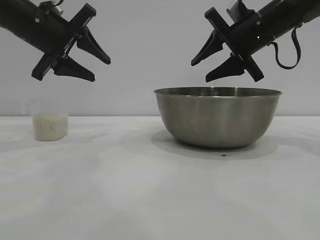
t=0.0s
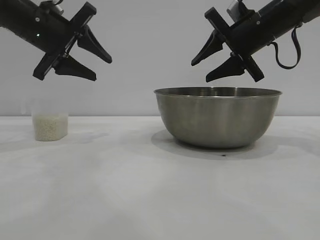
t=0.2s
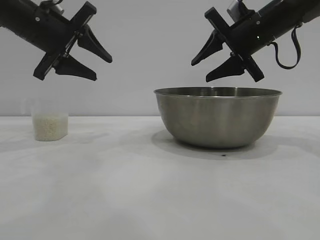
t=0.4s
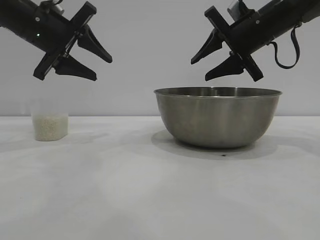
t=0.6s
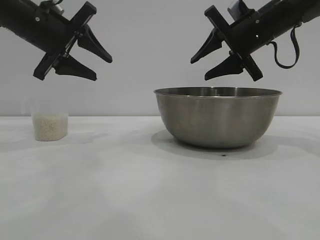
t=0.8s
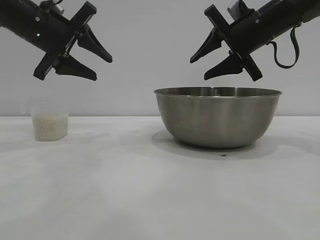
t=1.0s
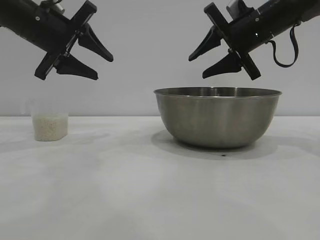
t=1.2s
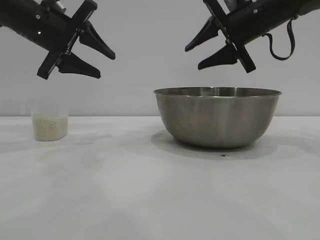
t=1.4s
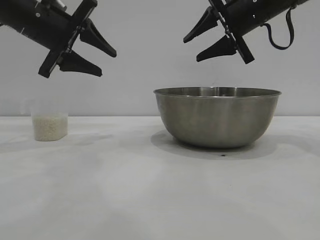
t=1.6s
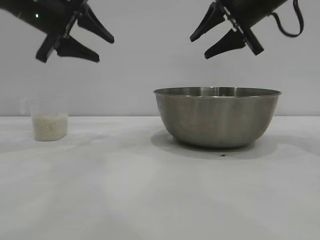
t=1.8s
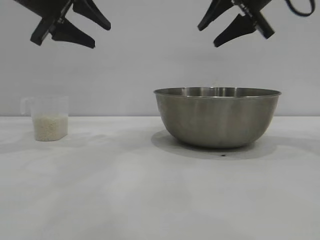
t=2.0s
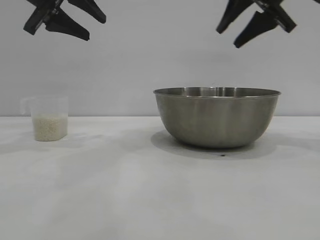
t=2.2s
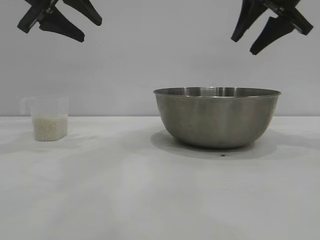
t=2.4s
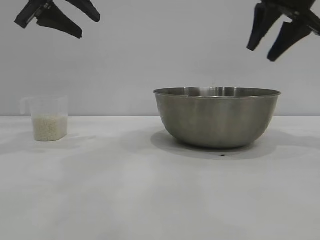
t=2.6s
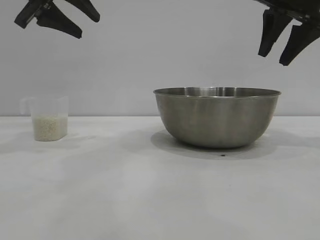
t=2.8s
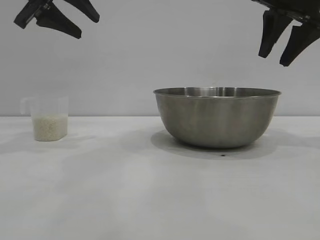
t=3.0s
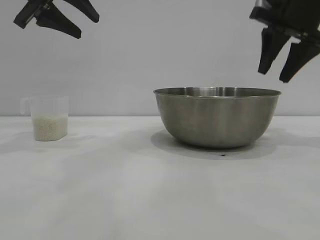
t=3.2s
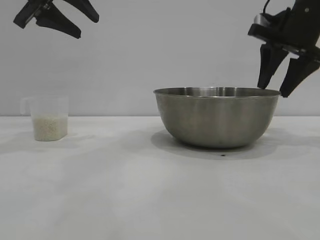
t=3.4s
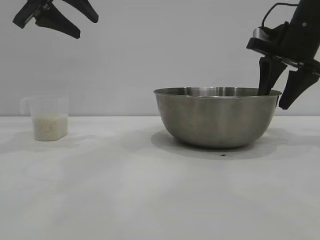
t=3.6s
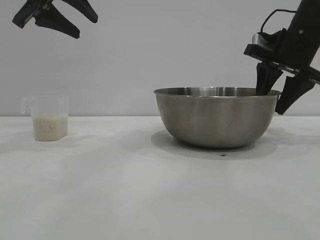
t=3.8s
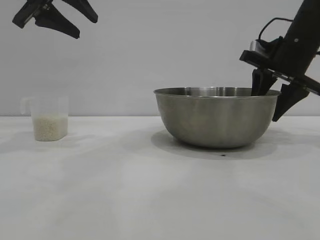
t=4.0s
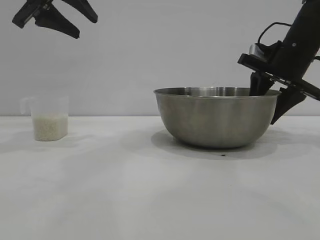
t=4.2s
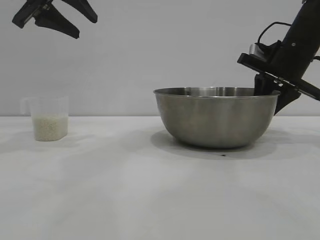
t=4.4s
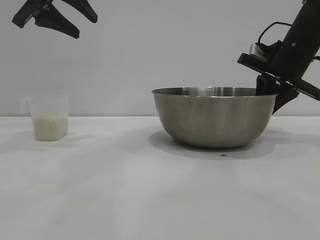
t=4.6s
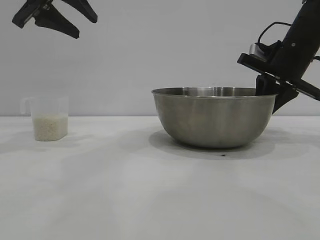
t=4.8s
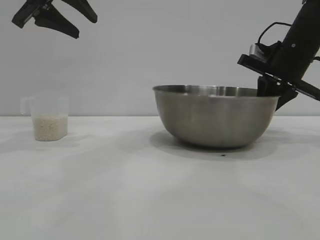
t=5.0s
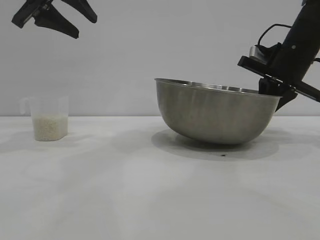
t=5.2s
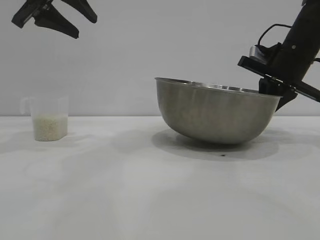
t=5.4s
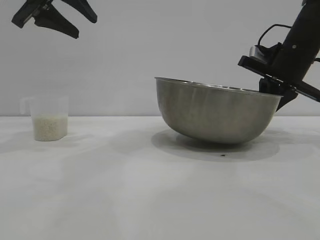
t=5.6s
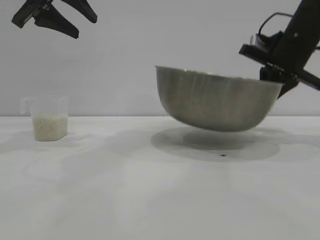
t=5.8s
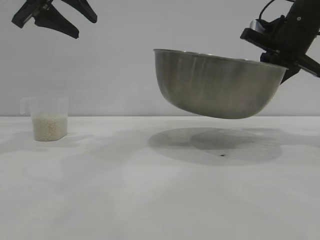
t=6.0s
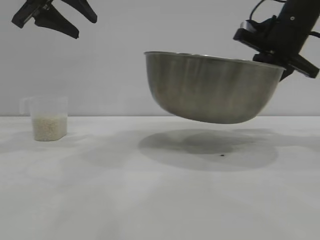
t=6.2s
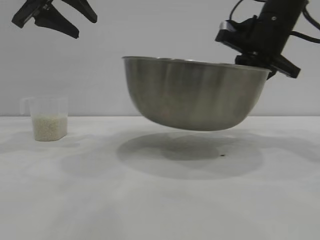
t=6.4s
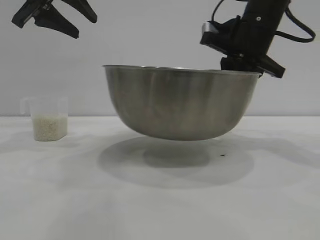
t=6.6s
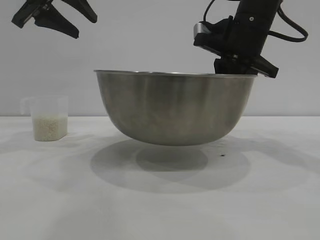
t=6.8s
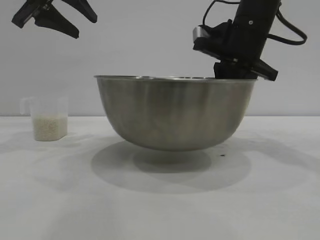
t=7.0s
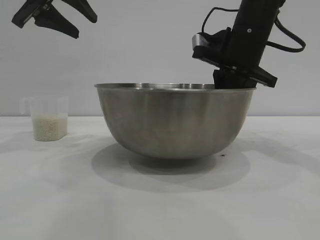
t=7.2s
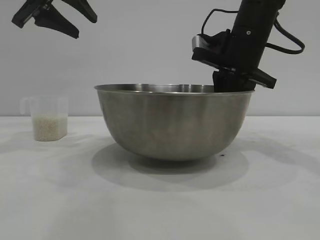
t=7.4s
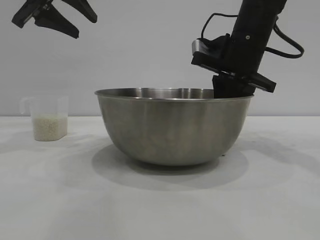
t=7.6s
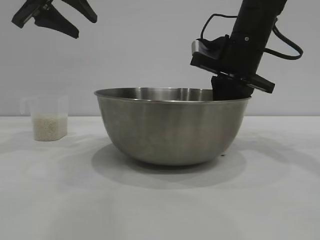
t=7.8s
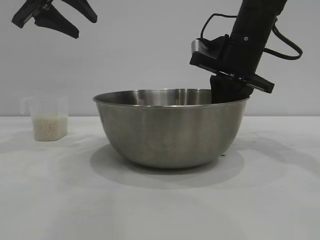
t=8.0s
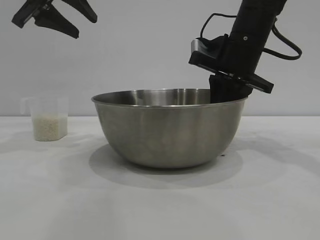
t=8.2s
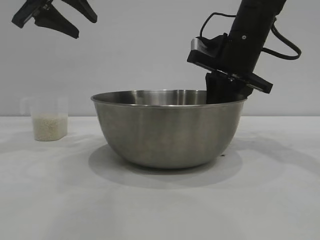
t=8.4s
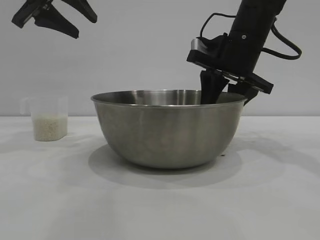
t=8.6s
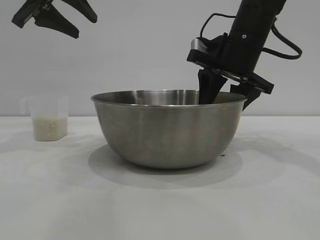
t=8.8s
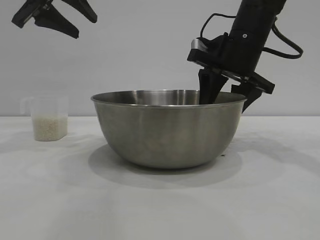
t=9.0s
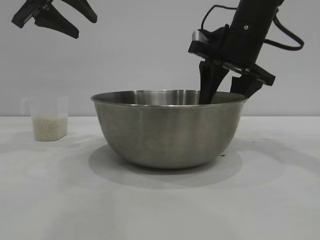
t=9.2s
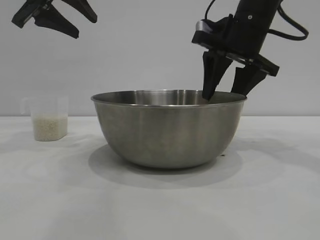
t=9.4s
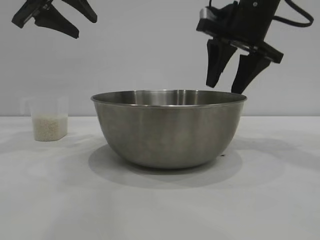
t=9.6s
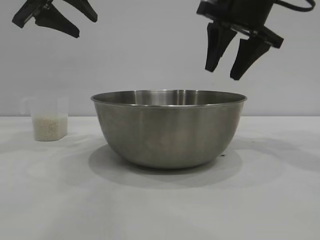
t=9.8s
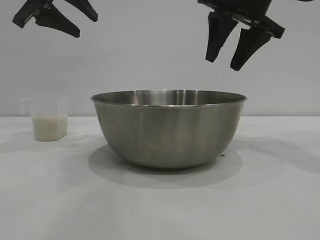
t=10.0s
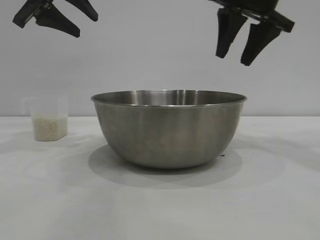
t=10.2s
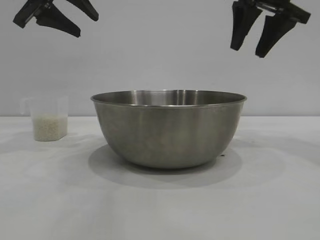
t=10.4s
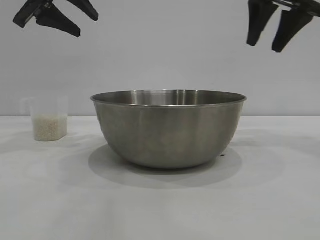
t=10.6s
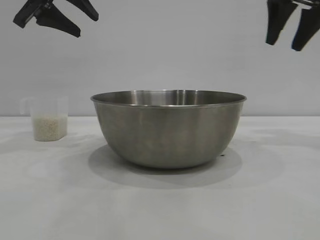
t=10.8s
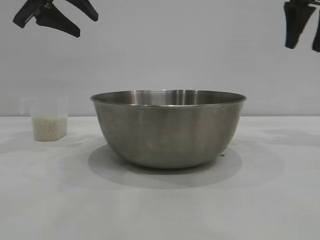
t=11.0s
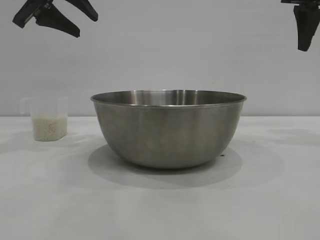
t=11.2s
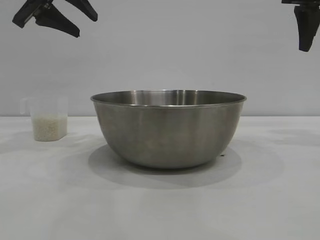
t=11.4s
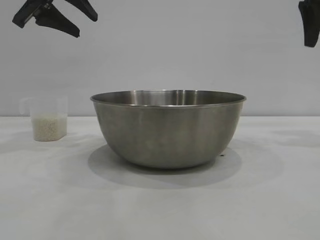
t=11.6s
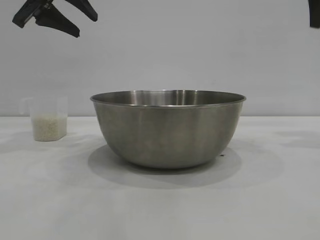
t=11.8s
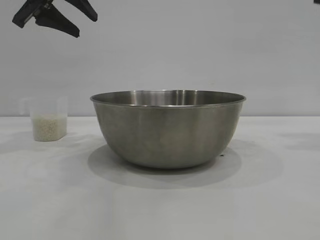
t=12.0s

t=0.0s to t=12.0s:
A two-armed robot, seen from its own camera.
Task of the whole recording: the right gripper grasp the rice container and place it in the center of the table, the left gripper grasp the rice scoop and pour the rice into the rice container.
Step, t=0.0s to t=5.8s: Pick up the bowl with the right gripper.
Step, t=6.0s to t=10.0s: Place the bowl in the center of view with the right gripper.

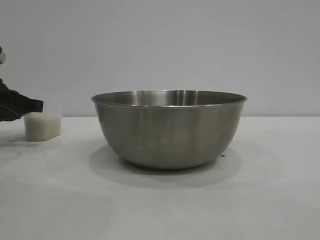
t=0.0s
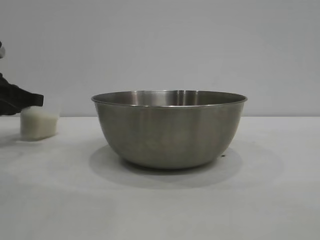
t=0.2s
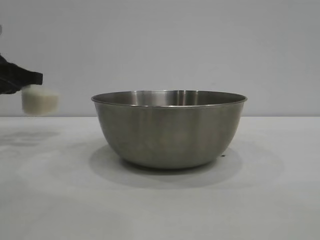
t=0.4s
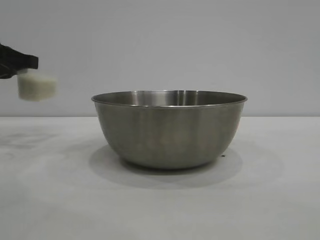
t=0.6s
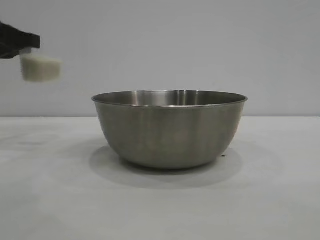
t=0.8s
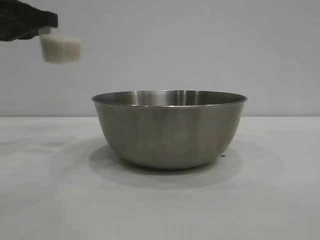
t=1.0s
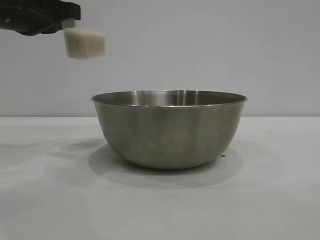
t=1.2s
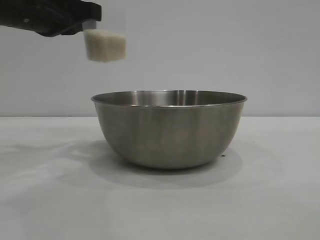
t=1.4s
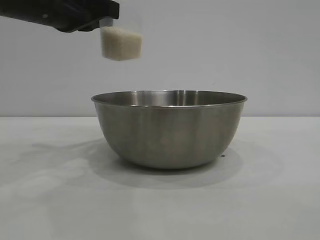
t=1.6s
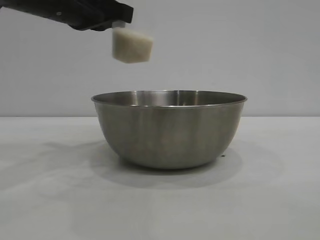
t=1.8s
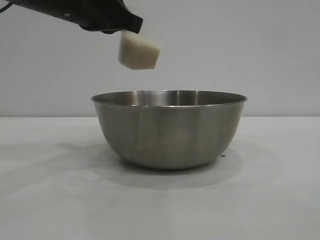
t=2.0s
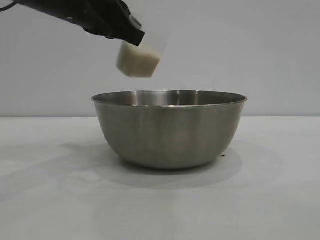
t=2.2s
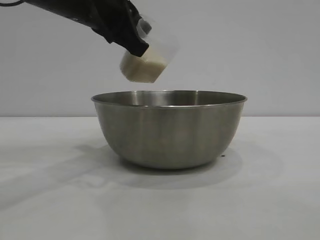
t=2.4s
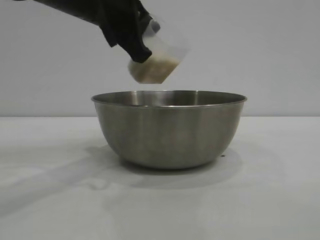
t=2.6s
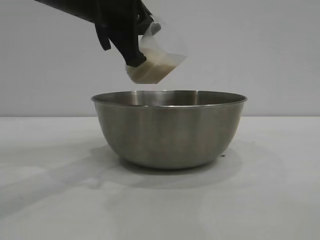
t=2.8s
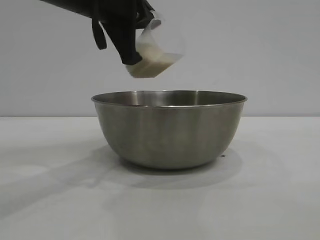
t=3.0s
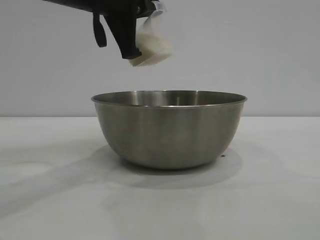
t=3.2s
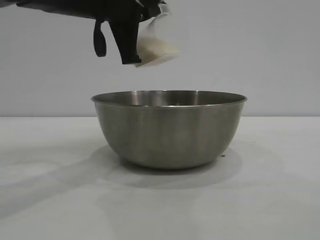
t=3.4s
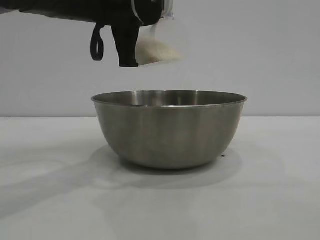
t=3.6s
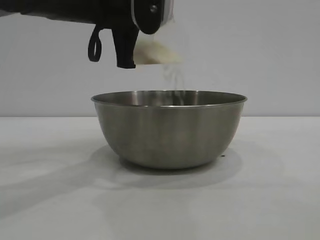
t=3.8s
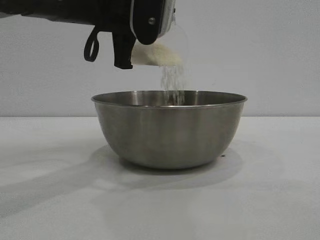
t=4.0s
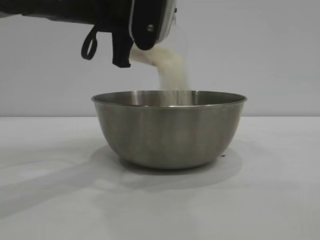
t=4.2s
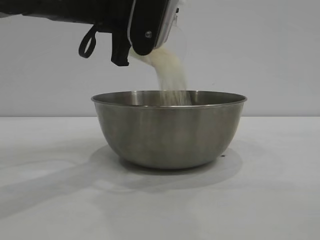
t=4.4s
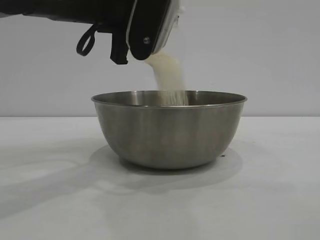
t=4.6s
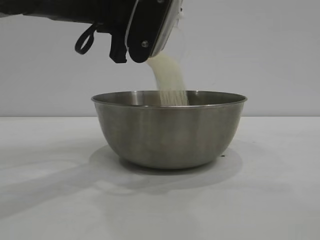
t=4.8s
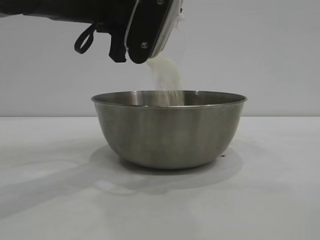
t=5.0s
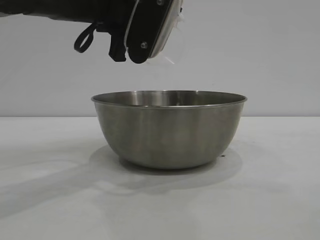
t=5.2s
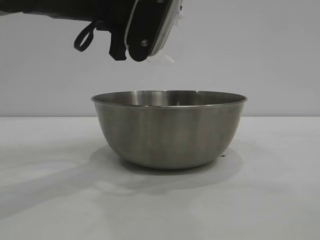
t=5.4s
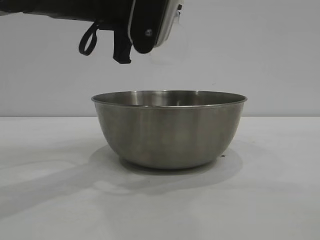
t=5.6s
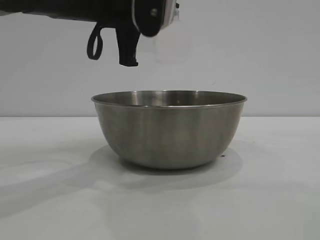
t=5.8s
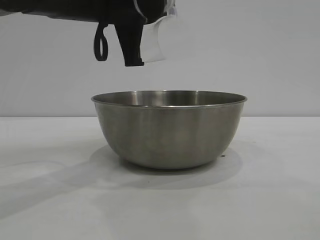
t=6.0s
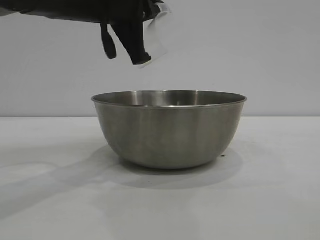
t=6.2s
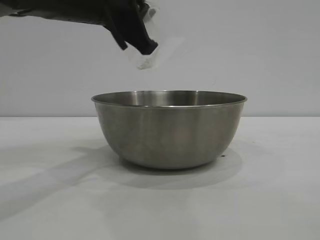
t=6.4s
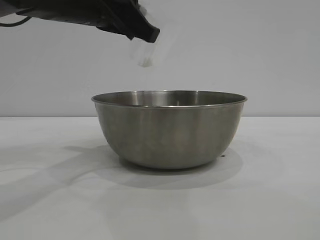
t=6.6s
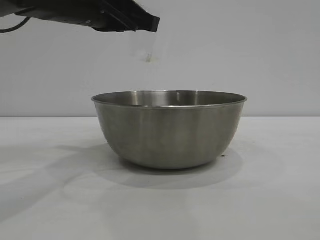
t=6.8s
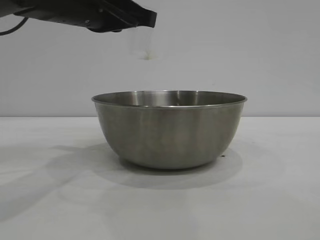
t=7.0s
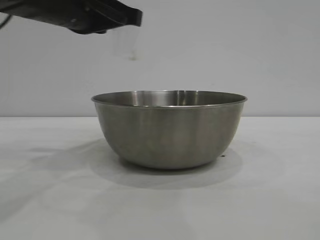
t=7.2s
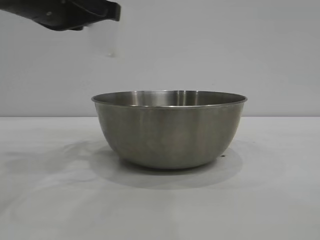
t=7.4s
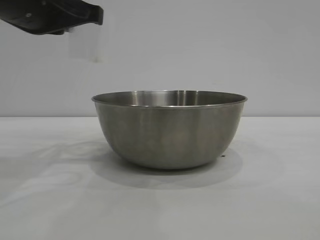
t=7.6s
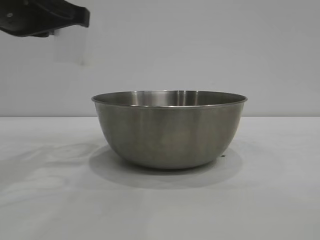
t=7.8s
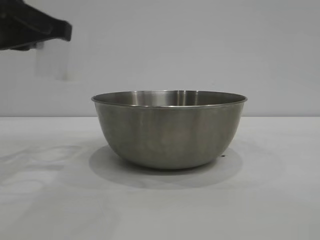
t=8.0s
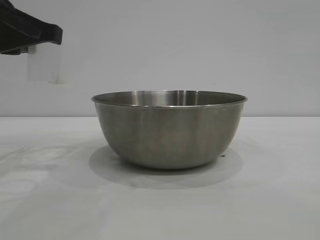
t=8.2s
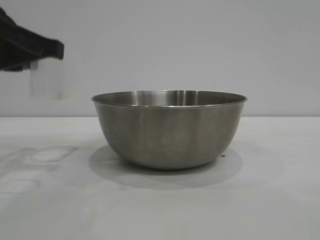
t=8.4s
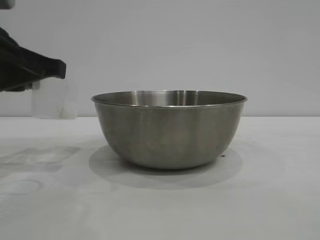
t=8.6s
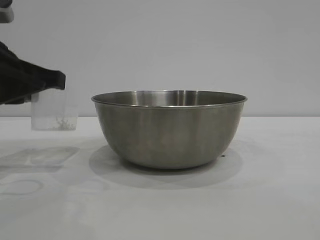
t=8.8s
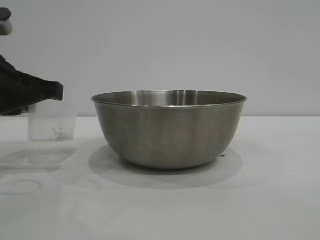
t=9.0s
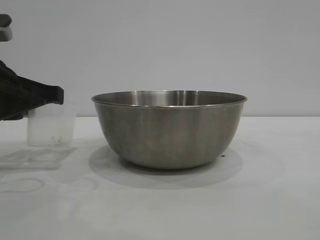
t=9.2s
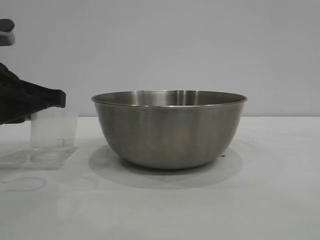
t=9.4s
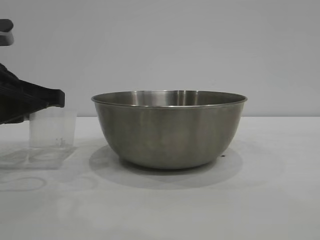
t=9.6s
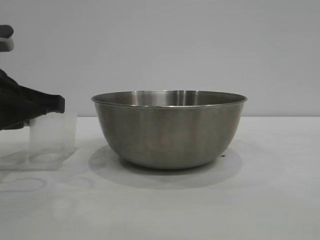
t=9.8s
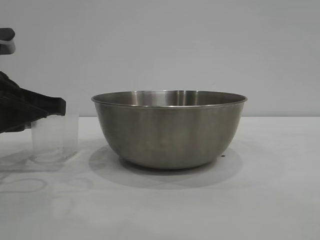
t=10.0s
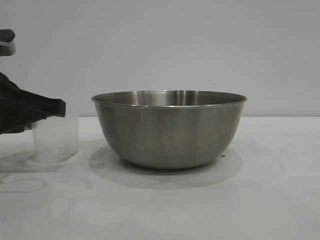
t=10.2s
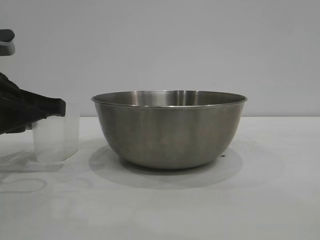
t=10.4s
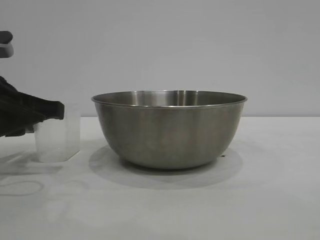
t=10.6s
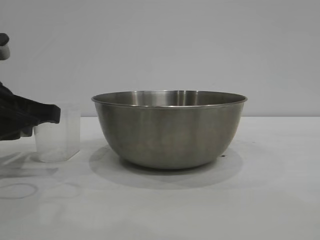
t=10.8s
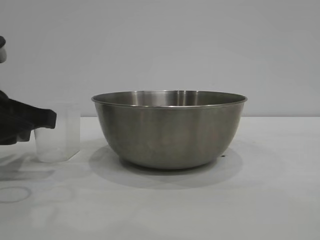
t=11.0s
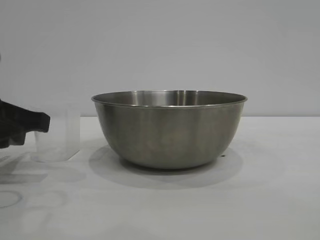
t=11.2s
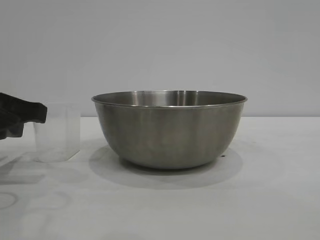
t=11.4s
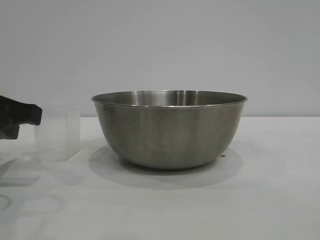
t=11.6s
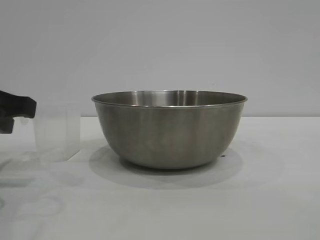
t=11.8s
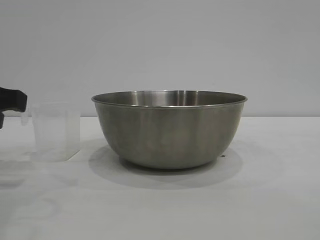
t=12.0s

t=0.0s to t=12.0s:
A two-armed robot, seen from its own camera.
Task of the whole recording: the right gripper grasp the rice container and place it in the center of the table, the left gripper grasp the rice scoop and pour the rice into the rice container.
Step, t=1.0s to t=5.6s: Pour the rice from the cup into the bowl with the left gripper.
Step, t=6.0s to t=11.4s: Place the cup on the table with the left gripper.
